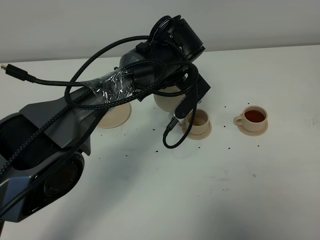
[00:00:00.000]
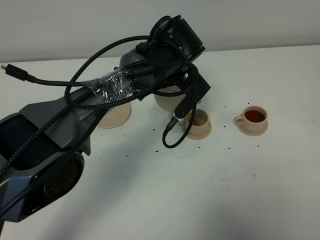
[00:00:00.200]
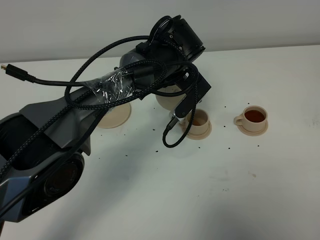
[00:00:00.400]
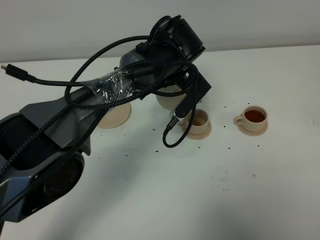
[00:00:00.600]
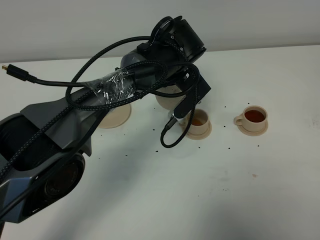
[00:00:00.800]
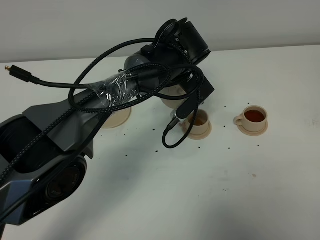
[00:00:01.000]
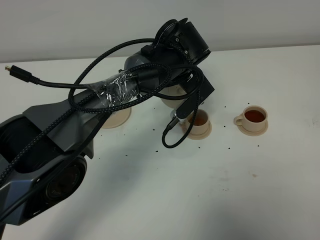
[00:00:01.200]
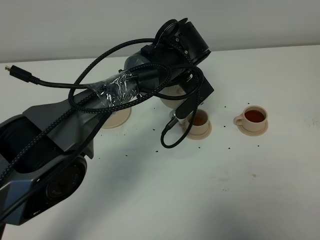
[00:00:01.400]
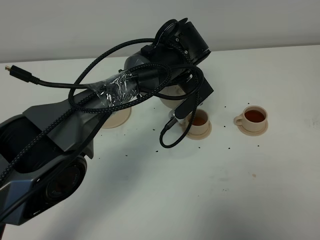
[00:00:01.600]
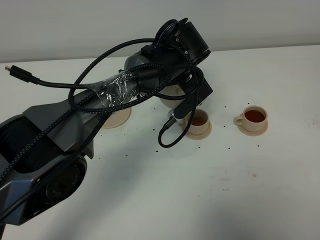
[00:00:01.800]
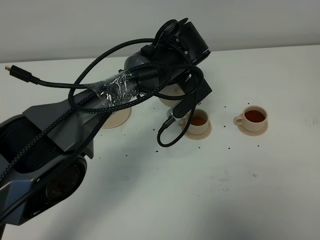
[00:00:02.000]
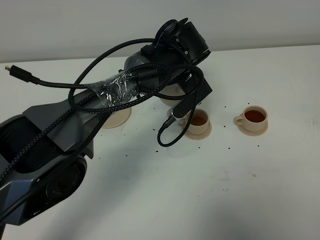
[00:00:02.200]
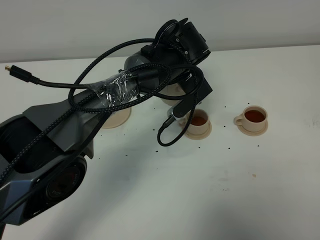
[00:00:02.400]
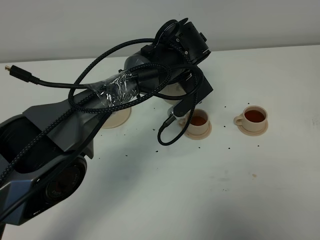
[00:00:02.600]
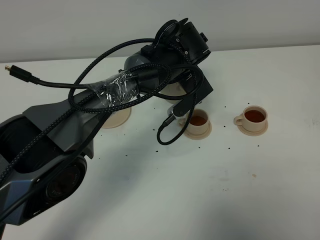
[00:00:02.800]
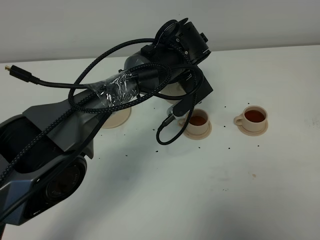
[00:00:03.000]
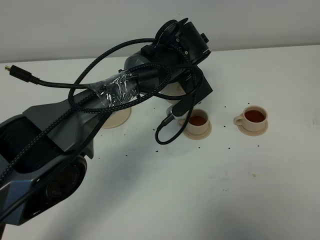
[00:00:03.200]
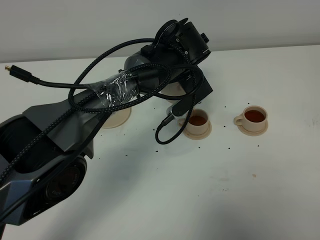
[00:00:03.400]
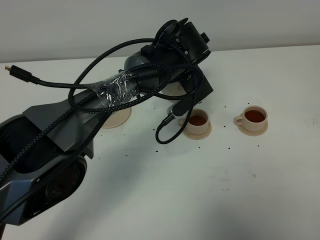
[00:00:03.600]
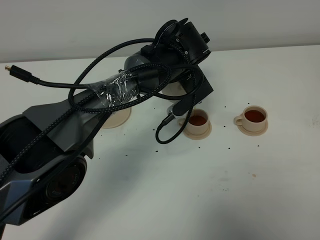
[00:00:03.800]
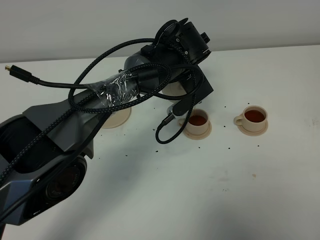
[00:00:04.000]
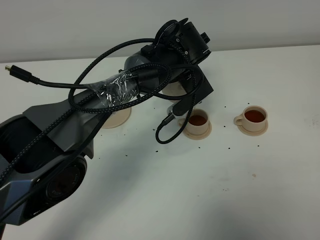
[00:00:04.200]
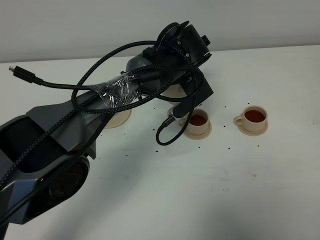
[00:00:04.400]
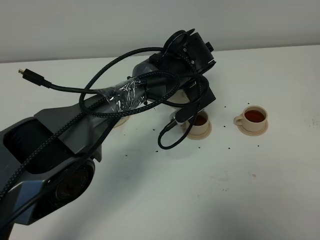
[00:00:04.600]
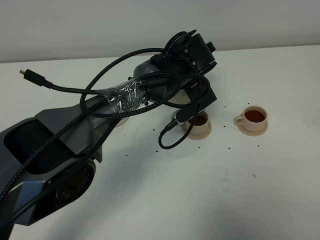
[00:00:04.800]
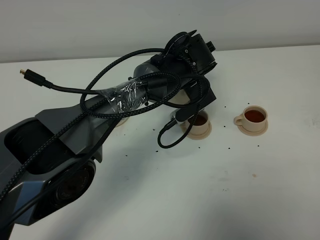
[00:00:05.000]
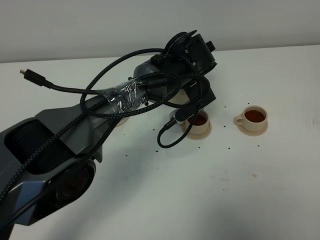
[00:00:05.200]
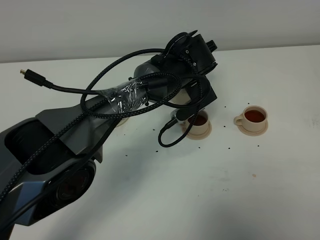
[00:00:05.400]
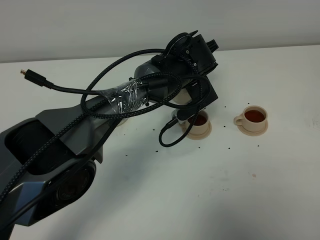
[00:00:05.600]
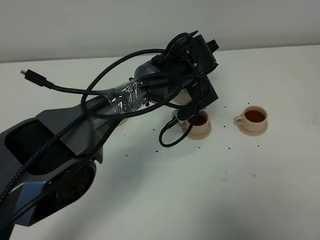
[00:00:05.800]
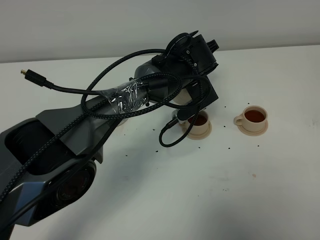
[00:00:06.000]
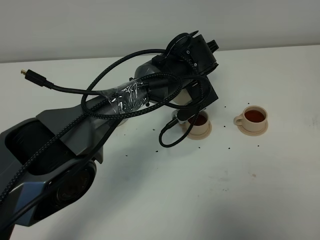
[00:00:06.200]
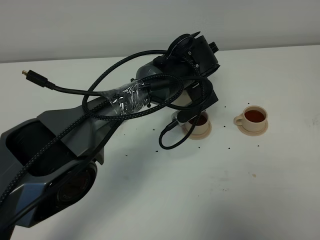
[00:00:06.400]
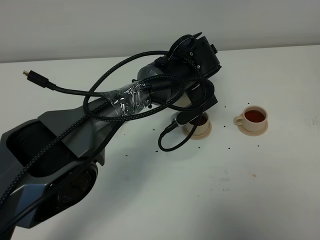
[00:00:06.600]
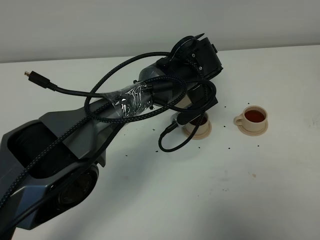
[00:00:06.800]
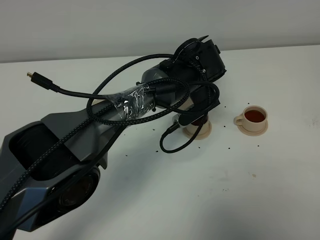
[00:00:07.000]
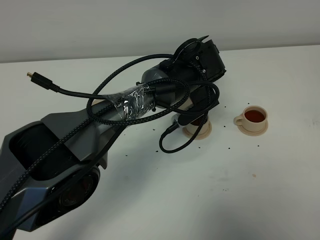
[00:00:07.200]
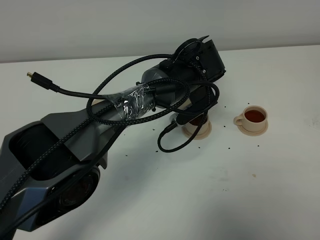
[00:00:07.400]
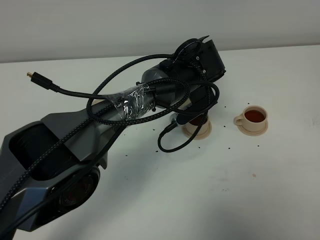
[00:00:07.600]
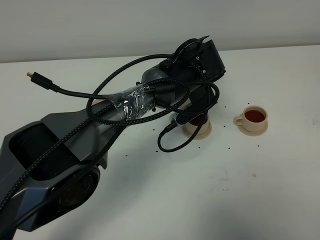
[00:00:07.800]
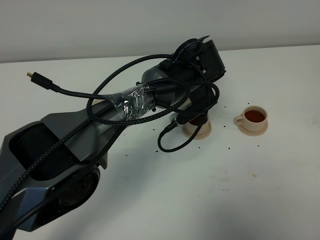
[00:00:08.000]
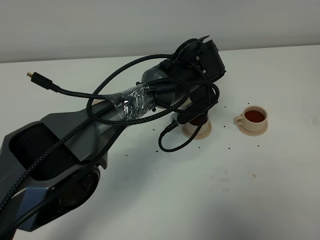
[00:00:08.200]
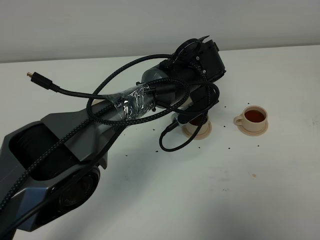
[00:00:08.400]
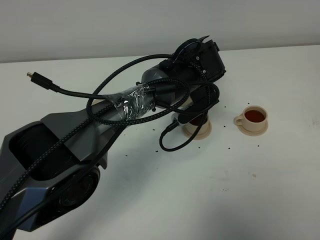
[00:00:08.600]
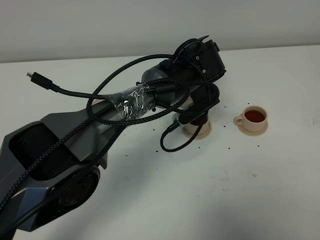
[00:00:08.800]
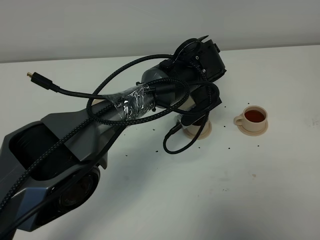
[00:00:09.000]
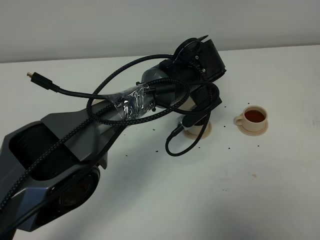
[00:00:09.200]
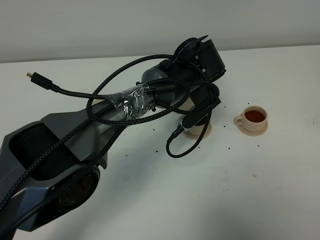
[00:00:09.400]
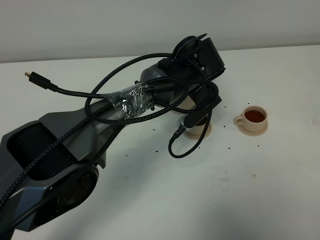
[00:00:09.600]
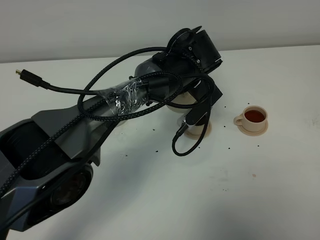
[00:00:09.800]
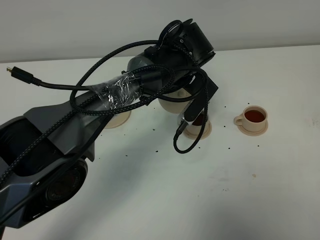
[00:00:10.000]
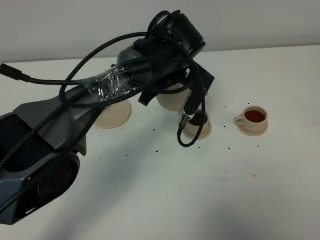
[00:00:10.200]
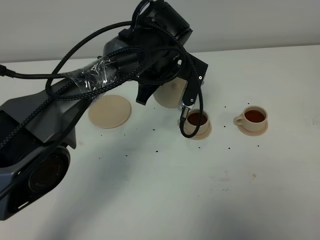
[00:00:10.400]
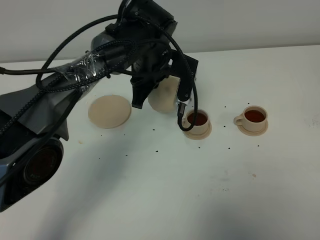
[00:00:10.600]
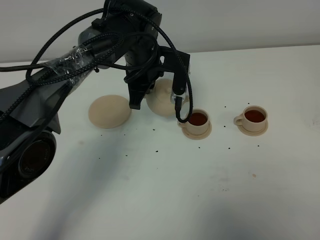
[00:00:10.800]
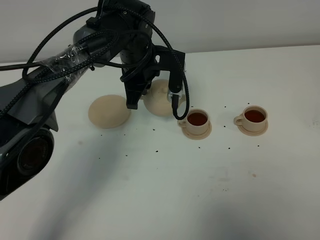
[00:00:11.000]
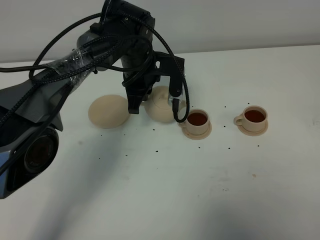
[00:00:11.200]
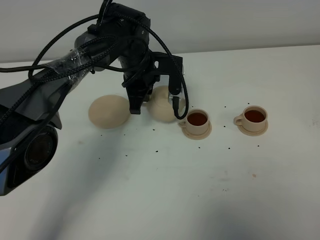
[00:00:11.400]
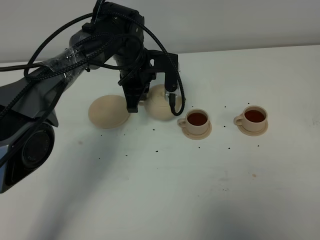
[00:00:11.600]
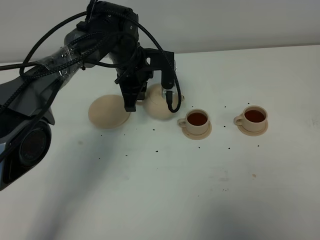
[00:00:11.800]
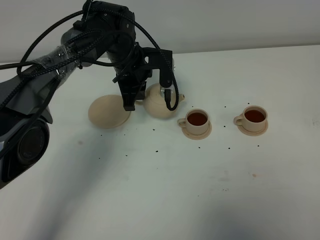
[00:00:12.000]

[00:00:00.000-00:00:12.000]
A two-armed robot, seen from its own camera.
Task of the whole recording: grasp the brown teapot and pour the tea into the two brown teacups one by one, put the brown teapot back in its original place.
Step, 00:00:00.000 to 00:00:10.400: Pour tea into the teacup with the left gripper.
00:00:00.000 to 00:00:01.600: The grippers make only small movements.
00:00:01.600 to 00:00:03.000: The two grippers keep their place.
00:00:03.000 to 00:00:04.400: The two grippers keep their place.
00:00:04.400 to 00:00:06.000: The two grippers keep their place.
00:00:06.000 to 00:00:07.600: The grippers make only small movements.
00:00:07.600 to 00:00:09.000: Both grippers stay about where they are.
00:00:09.000 to 00:00:10.400: The left gripper travels to the left by some 5 cm.
00:00:10.400 to 00:00:12.000: The left gripper heads to the left, covering approximately 5 cm.

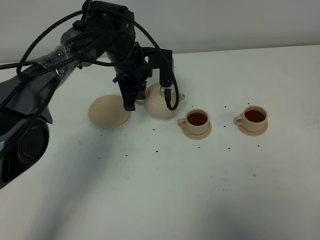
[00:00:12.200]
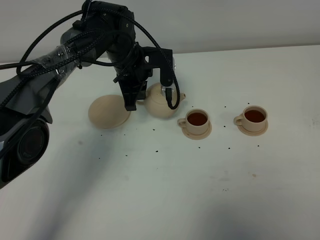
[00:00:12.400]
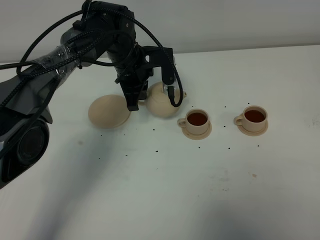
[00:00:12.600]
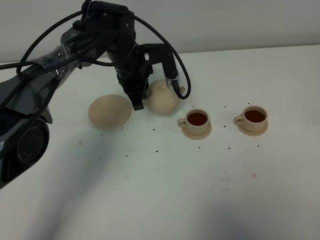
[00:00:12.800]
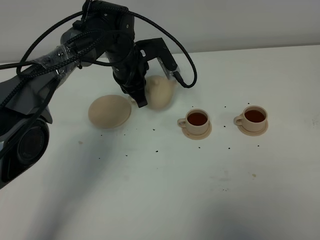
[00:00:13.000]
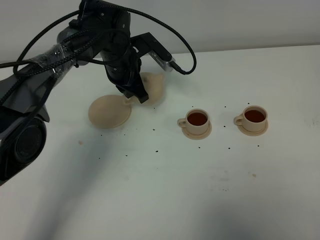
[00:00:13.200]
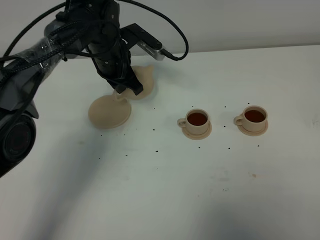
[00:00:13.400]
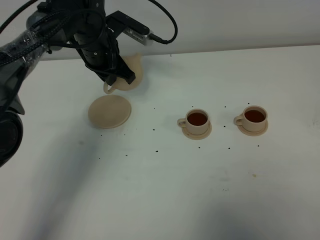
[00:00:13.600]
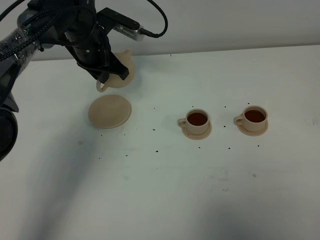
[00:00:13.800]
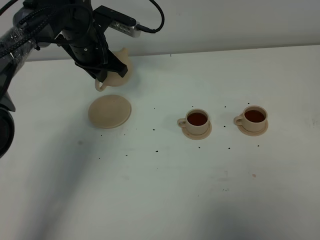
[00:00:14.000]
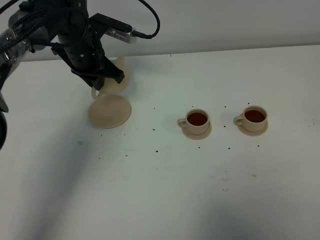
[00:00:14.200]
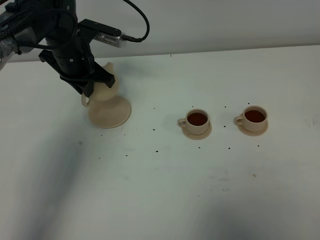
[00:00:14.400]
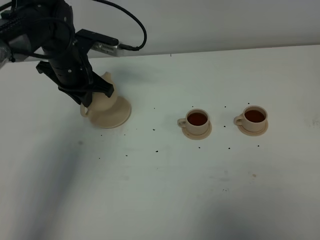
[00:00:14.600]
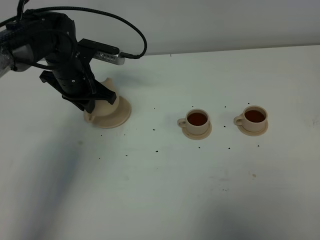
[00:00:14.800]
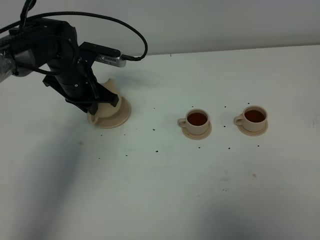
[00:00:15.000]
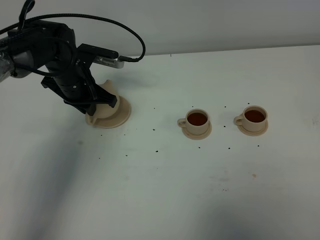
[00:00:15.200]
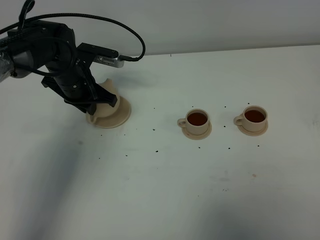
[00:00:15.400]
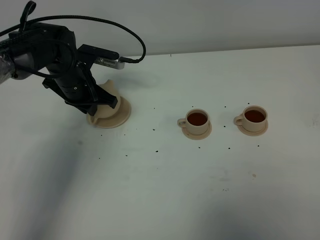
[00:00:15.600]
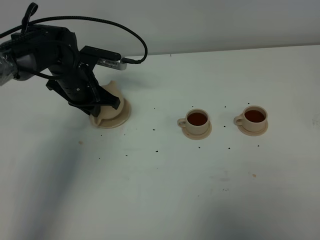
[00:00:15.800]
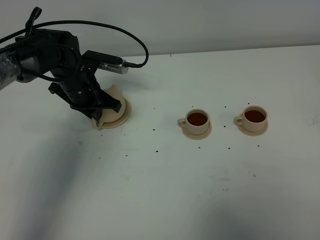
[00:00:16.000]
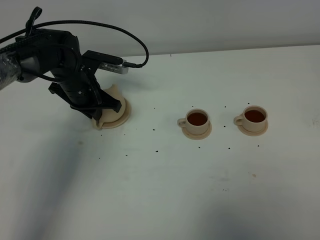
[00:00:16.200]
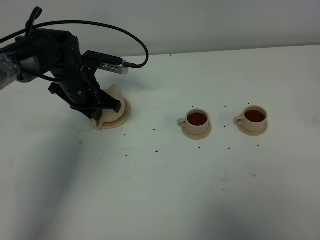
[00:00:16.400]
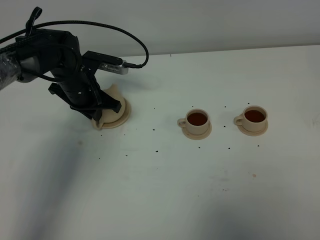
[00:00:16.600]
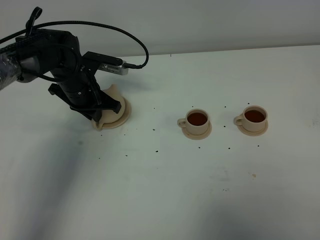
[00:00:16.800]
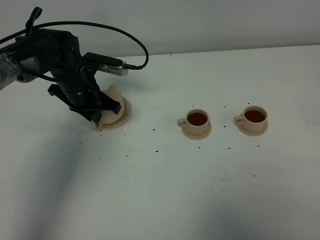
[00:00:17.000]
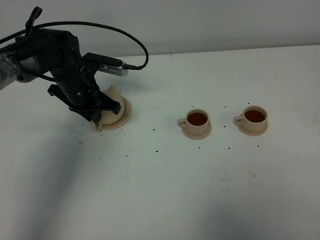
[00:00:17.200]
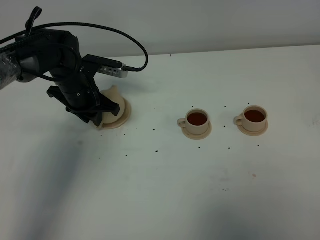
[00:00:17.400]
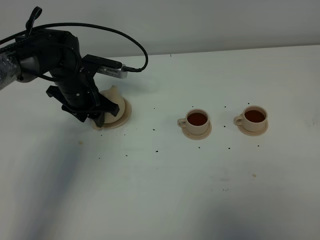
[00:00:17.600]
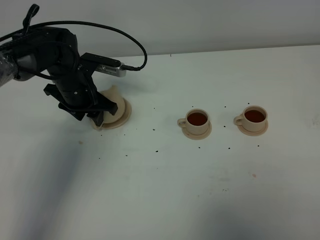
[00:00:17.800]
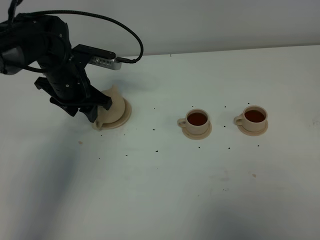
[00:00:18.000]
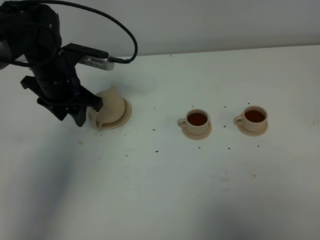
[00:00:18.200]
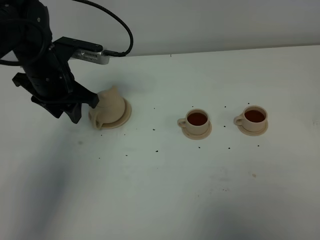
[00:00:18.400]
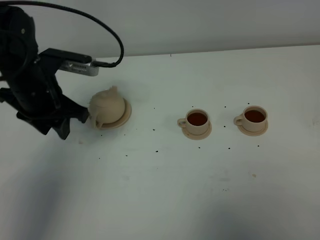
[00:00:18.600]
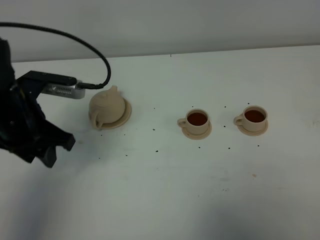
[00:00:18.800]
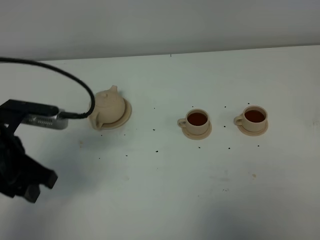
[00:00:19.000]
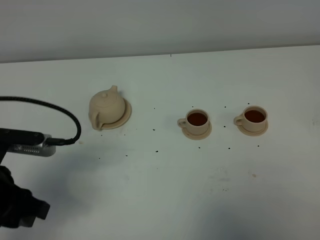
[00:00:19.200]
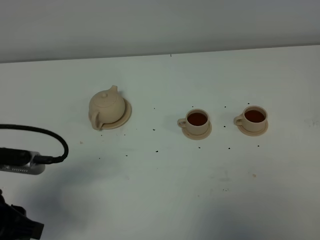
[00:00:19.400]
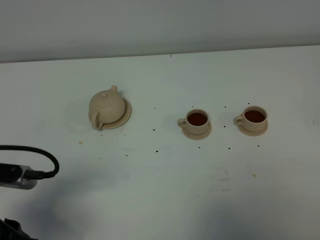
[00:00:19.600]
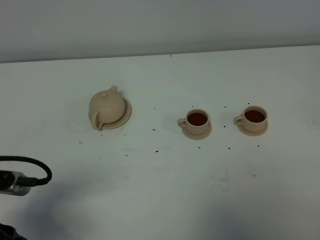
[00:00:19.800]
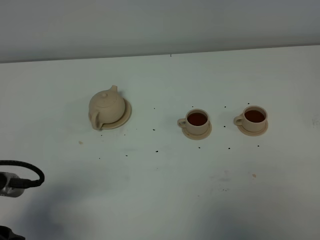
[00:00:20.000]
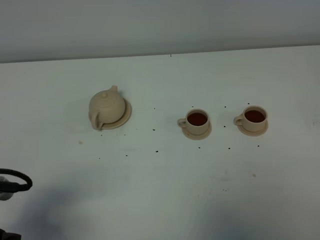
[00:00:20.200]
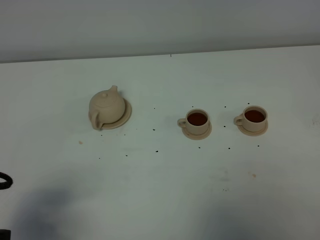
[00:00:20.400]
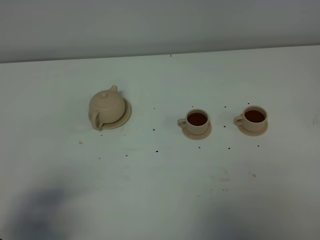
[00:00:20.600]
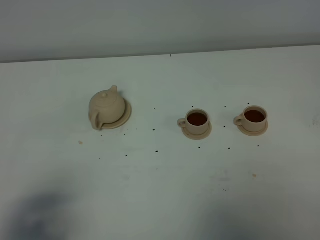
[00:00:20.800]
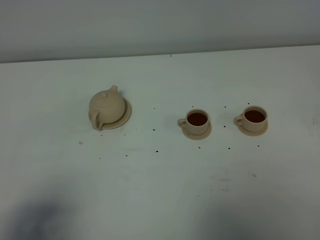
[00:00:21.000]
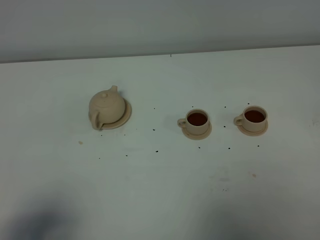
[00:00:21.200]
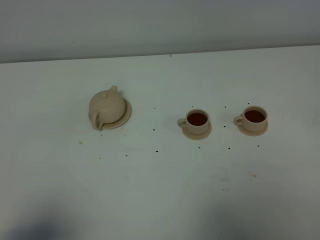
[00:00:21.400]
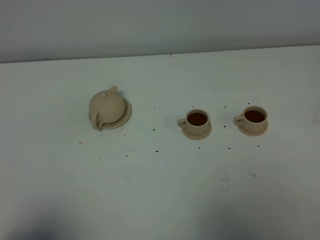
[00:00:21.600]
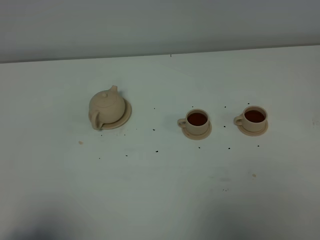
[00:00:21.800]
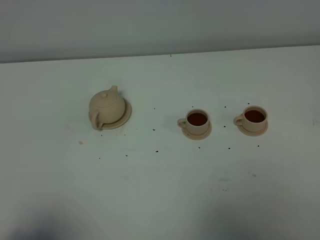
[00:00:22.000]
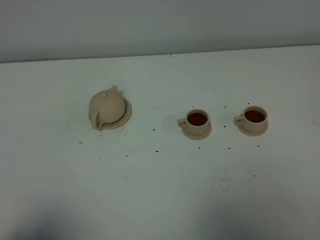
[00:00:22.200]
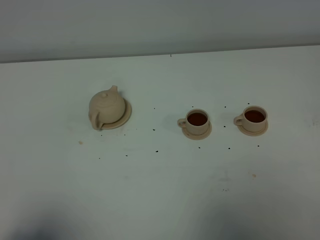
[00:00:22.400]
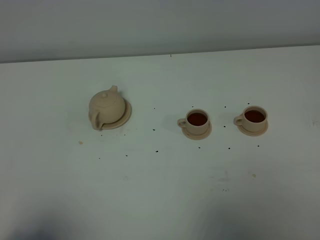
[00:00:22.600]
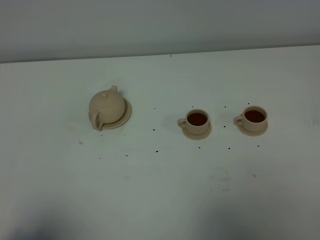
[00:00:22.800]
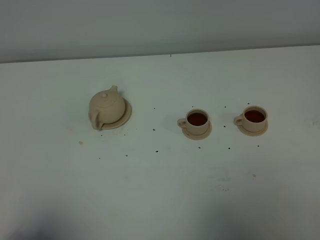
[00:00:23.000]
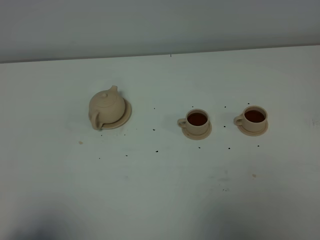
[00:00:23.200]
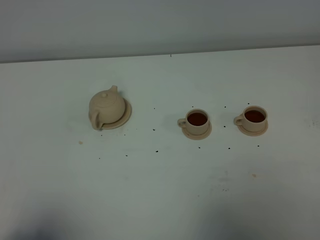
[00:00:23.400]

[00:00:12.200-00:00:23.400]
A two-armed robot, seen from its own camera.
Task of the whole recording: grasp the brown teapot and pour the tea into the two brown teacups one by one, put the brown teapot back in its original place.
00:00:12.200 to 00:00:13.800: The left gripper heads to the left, covering about 5 cm.
00:00:13.800 to 00:00:15.400: The left gripper goes roughly 5 cm downward.
00:00:15.400 to 00:00:17.000: The grippers move only a little.
00:00:17.000 to 00:00:18.600: The left gripper travels backward and upward by approximately 15 cm, and opens its fingers.
00:00:18.600 to 00:00:20.200: The left gripper travels backward by about 25 cm.
00:00:20.200 to 00:00:21.800: The left gripper shifts roughly 10 cm backward.
00:00:21.800 to 00:00:23.400: Both grippers stay put.
